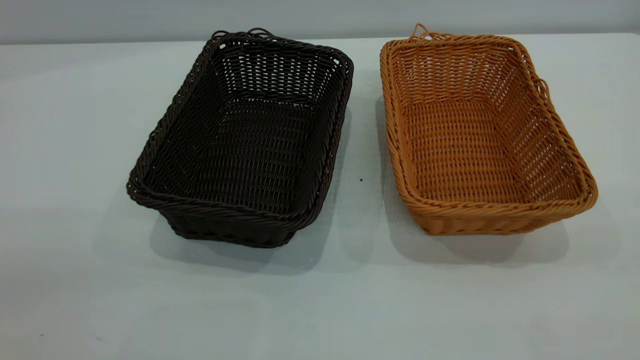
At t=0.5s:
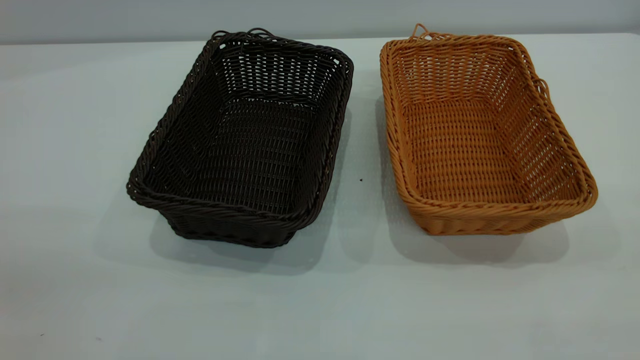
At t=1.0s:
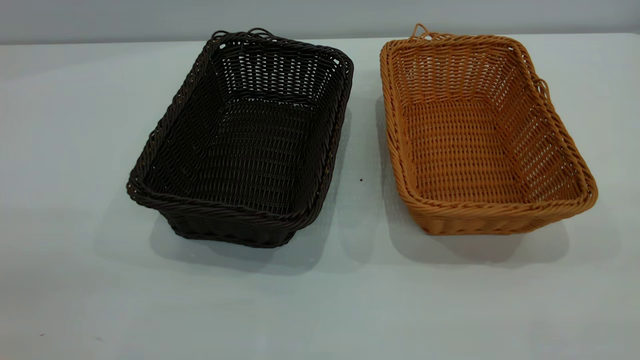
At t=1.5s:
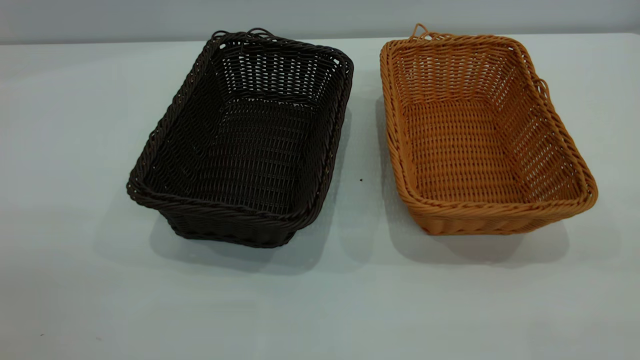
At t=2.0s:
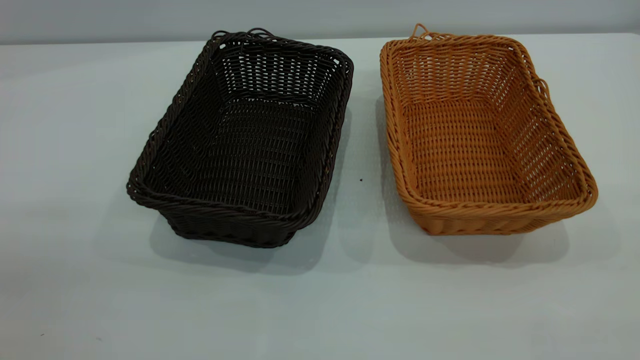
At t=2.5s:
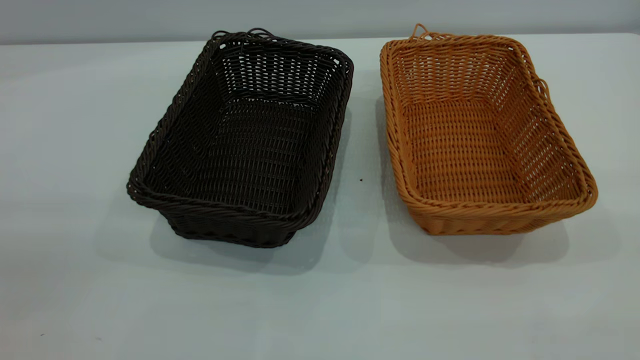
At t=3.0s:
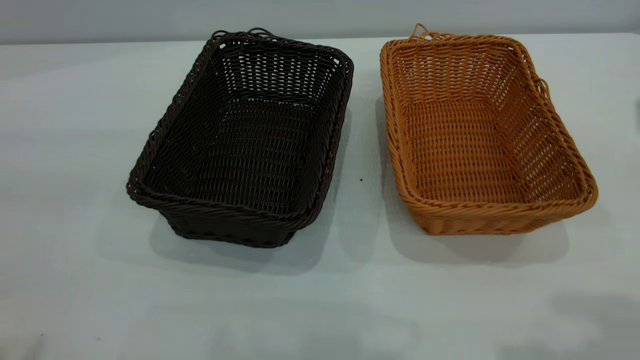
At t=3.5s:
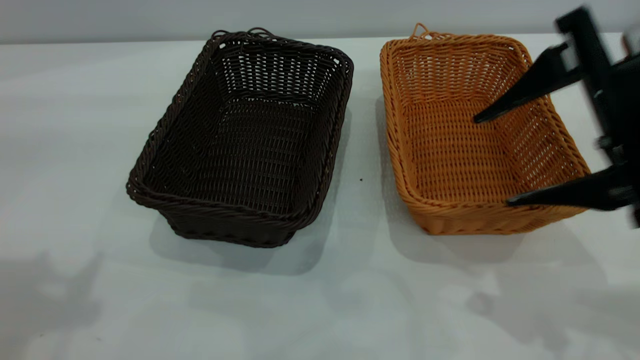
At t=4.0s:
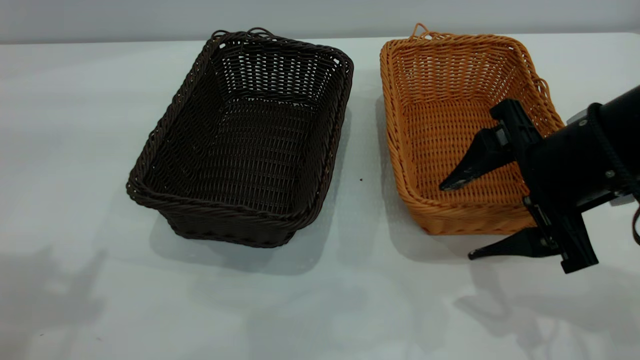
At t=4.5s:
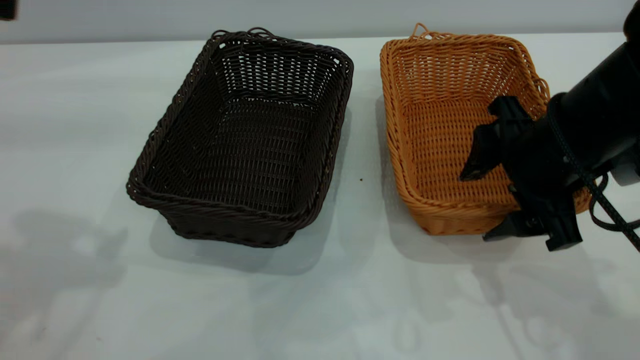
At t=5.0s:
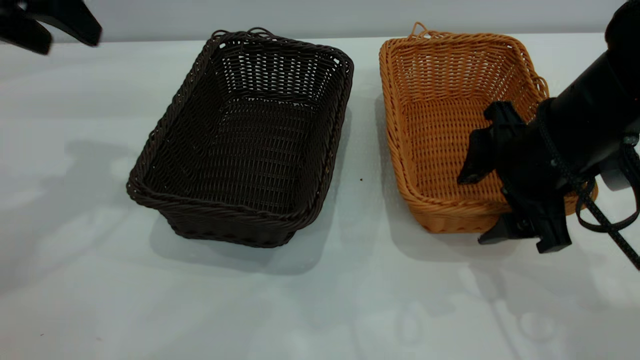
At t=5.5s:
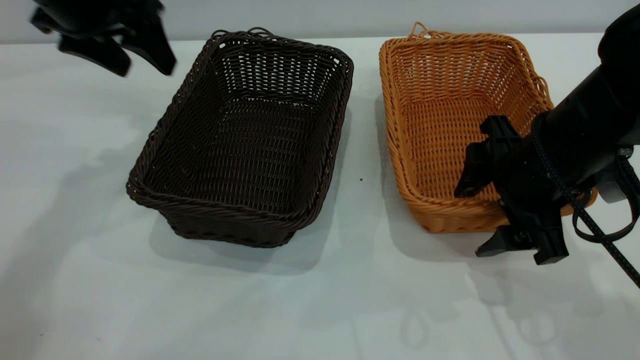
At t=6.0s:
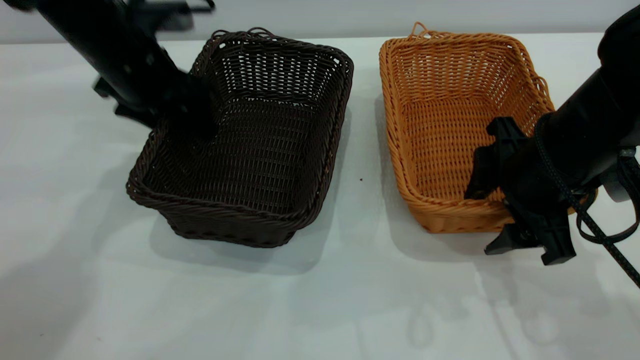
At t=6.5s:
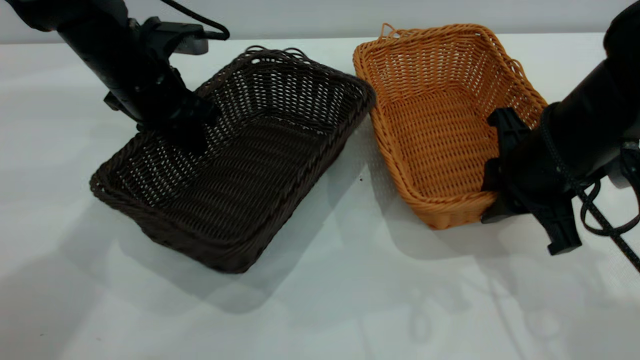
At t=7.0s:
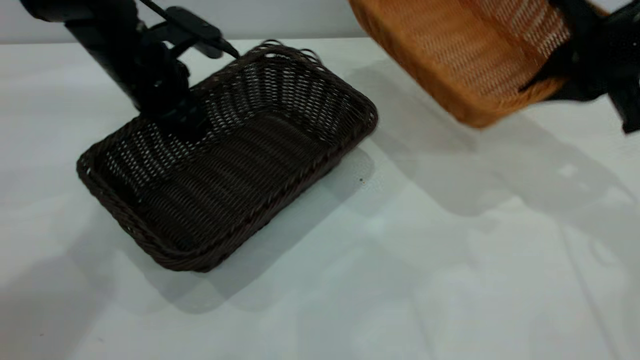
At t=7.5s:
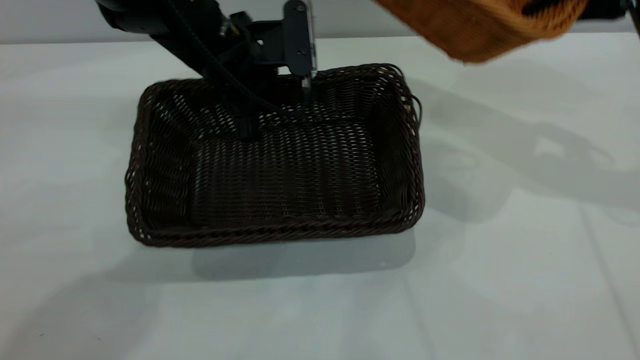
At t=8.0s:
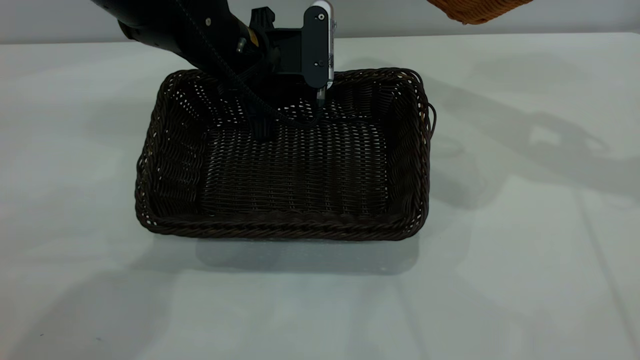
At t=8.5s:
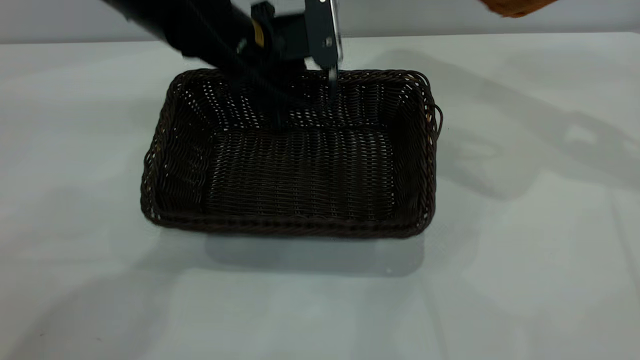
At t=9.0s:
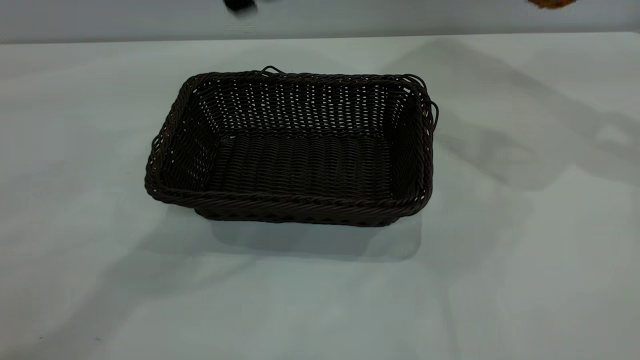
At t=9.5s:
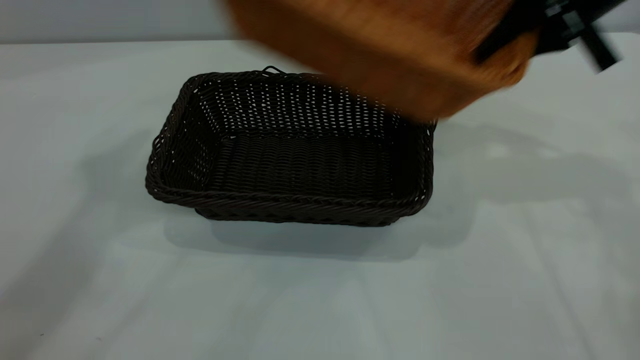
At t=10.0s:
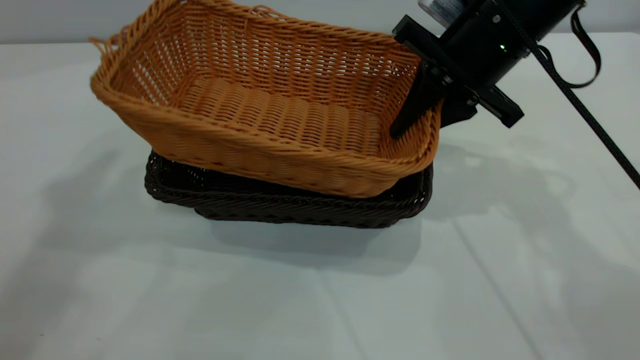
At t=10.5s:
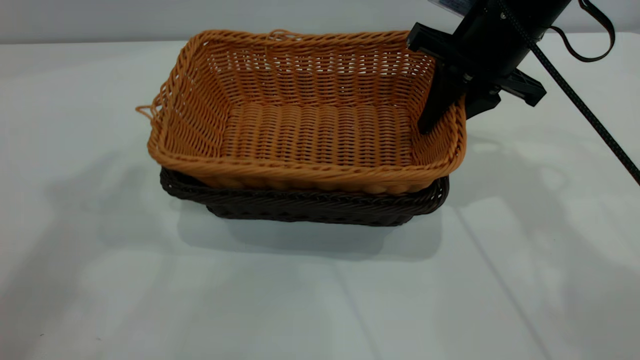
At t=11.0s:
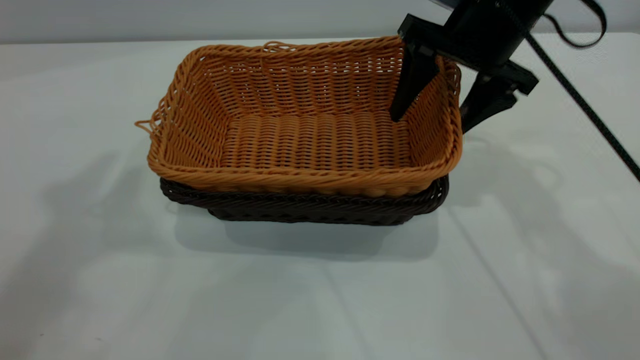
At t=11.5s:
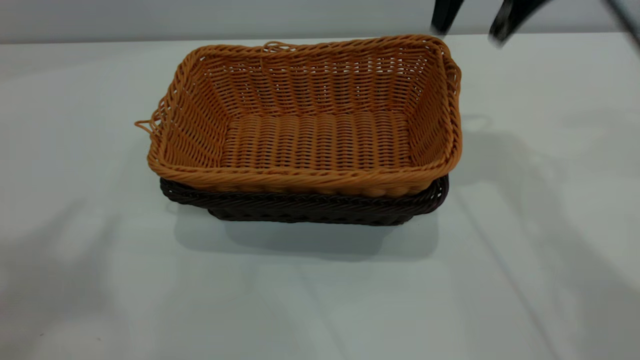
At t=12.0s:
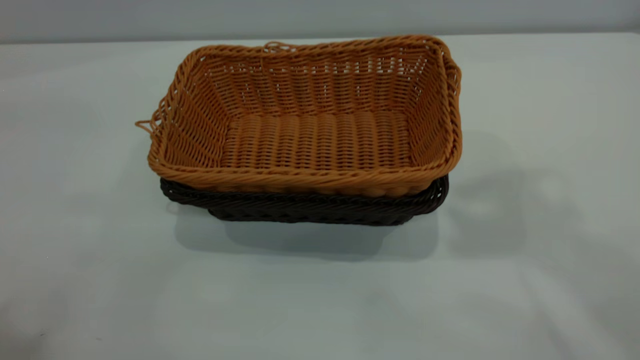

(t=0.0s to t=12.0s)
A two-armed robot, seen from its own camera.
Task of the whole recording: the left gripper grasp the black basket and place it in the center of the table, the right gripper grasp the brown basket and place it inside the black one.
Step, t=0.0s - t=6.5s: Pick up the light basket with the right gripper.
Step, t=7.0s - t=8.5s: Move the dark basket to the center of view.
Step, t=9.0s - t=11.0s: Place the light basket on the dark basket.
t=0.0s - t=2.0s: Both grippers stay about where they are.
t=2.0s - t=4.0s: The right gripper goes about 35 cm forward and downward.
t=4.0s - t=6.0s: The left gripper travels forward, downward and to the right by approximately 30 cm.
t=6.0s - t=8.0s: The left gripper travels to the right by about 10 cm, and closes its fingers. The right gripper goes about 20 cm upward, forward and to the right, and closes up.
t=8.0s - t=10.0s: The right gripper goes about 15 cm to the left and downward; the left gripper heads upward, covering some 40 cm, and opens its fingers.
t=10.0s - t=12.0s: The left gripper shifts some 15 cm backward. The right gripper shifts approximately 35 cm upward, and opens its fingers.

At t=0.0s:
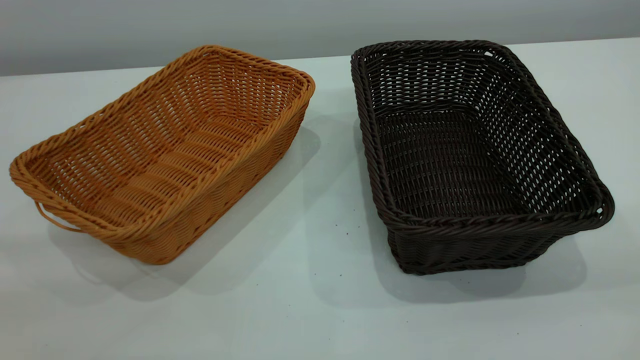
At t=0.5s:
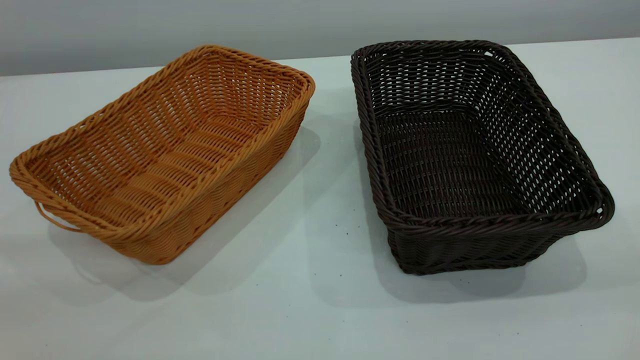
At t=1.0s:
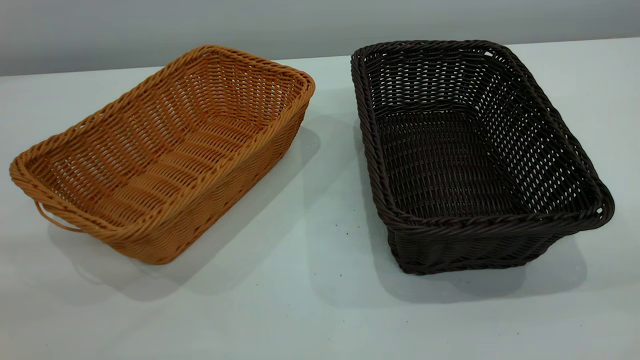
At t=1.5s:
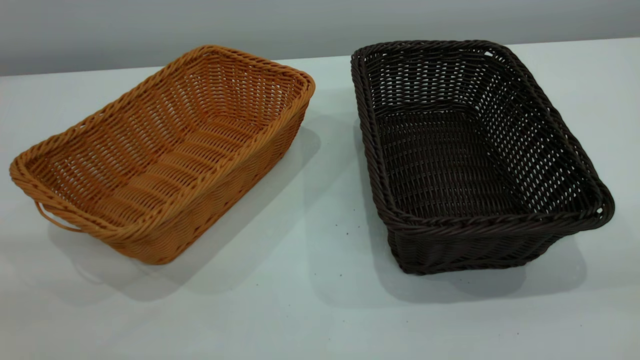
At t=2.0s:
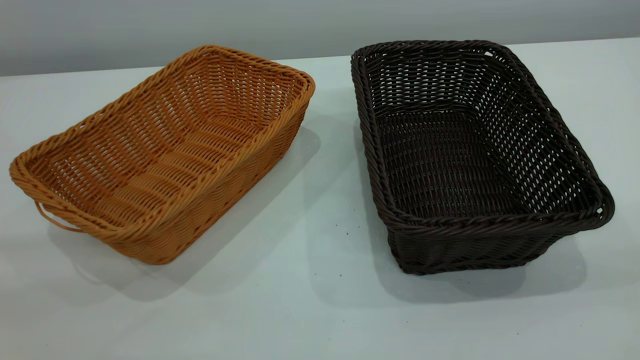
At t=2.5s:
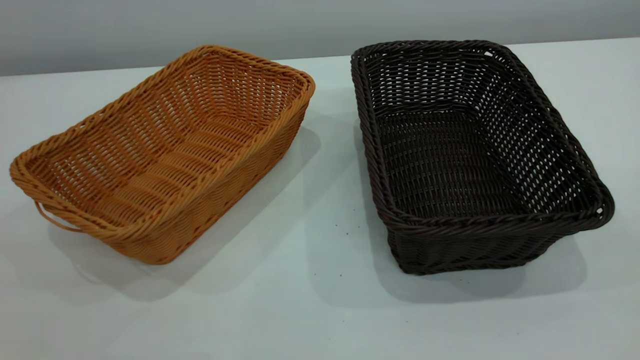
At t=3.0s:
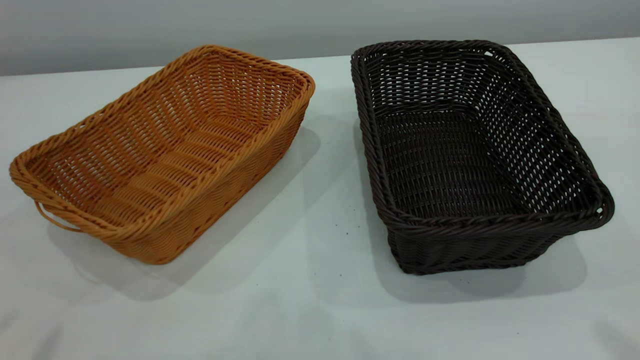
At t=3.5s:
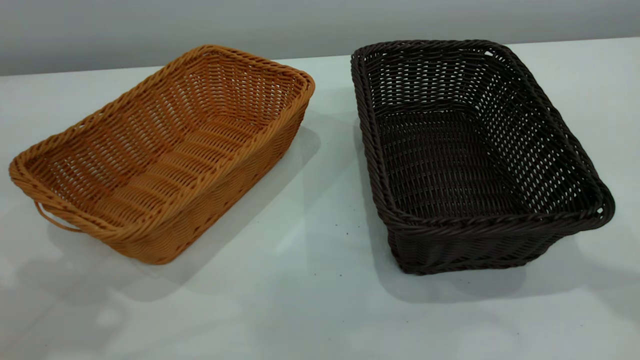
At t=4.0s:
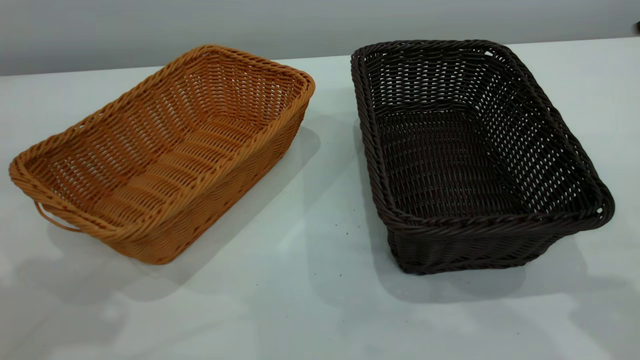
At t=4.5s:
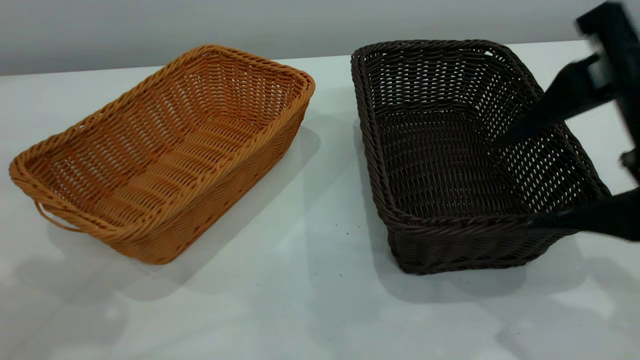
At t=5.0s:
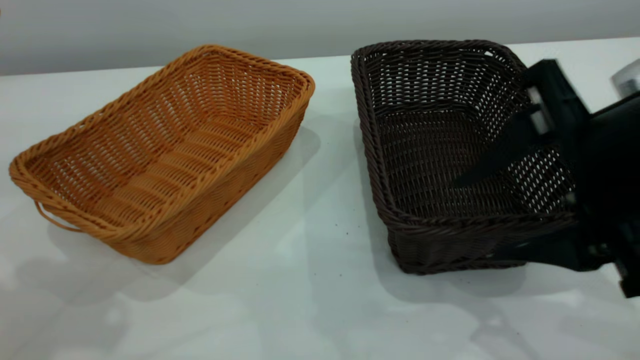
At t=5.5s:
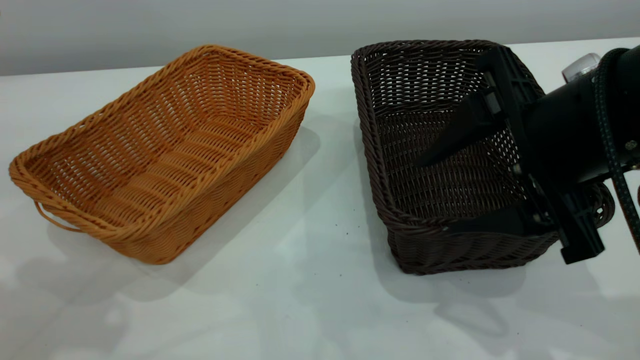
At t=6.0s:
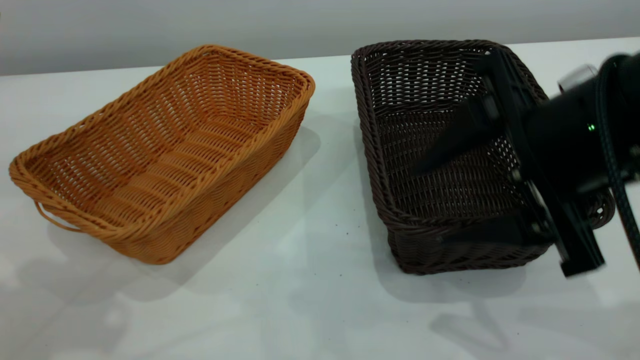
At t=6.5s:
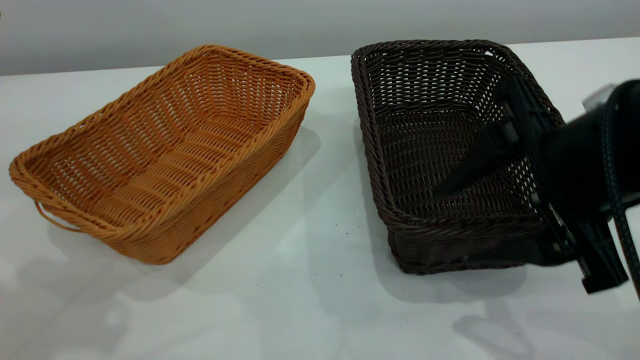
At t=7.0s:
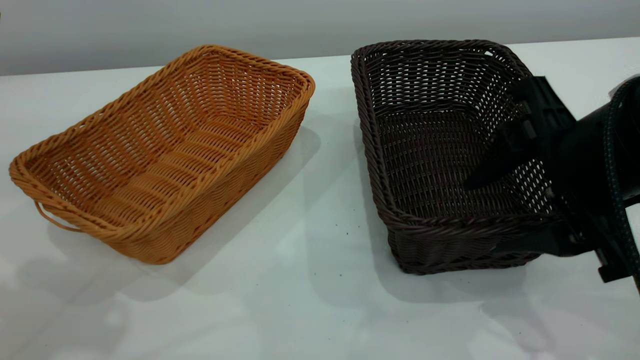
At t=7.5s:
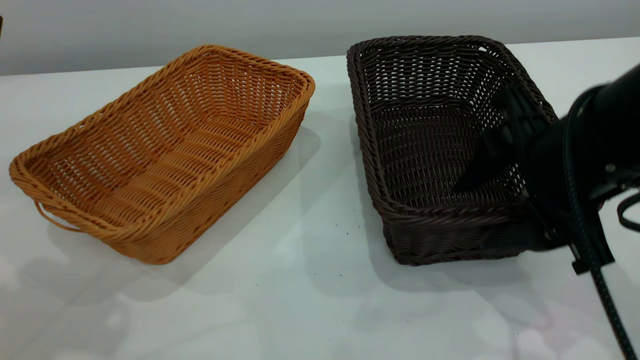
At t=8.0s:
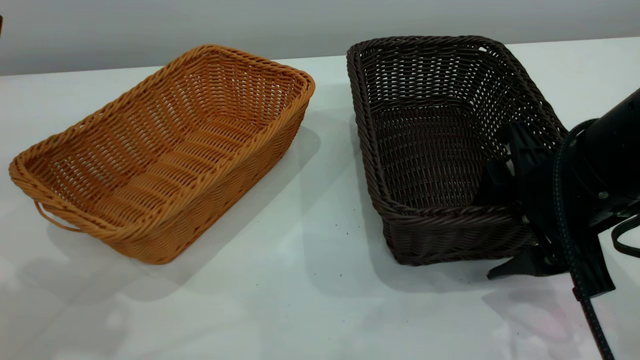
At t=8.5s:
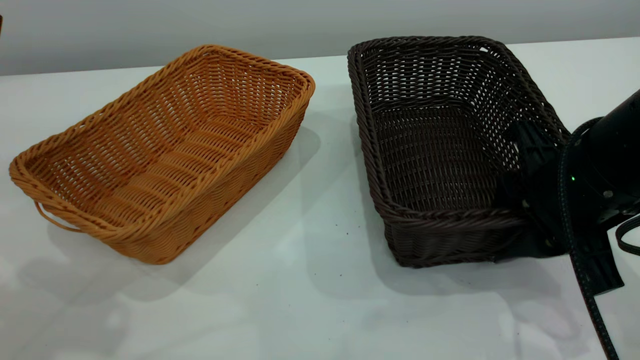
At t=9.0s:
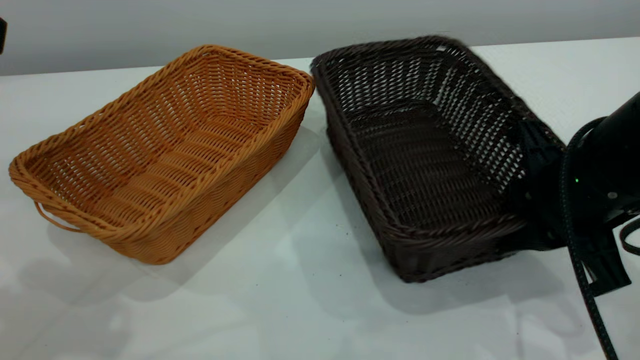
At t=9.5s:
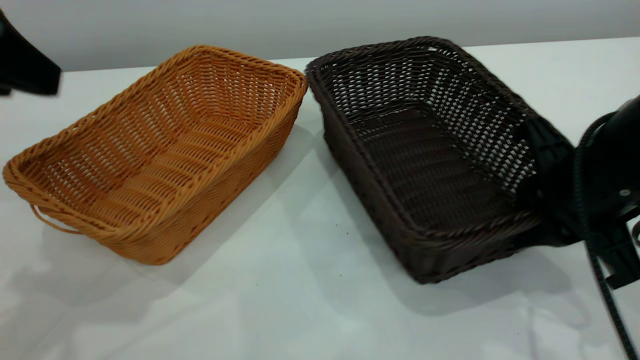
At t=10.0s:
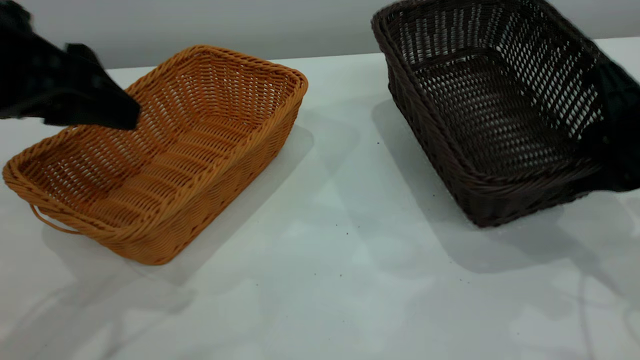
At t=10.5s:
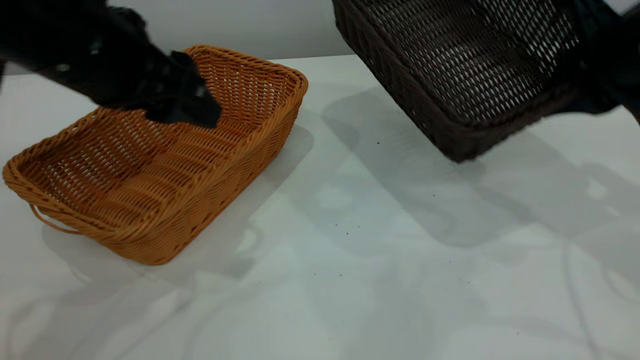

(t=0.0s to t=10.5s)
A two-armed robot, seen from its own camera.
Task of the whole recording: the left gripper grasp the brown basket and place it in the center of the table, the right gripper grasp the black basket and place it inside the brown one.
Step, t=0.0s - t=9.5s: Pick up the light basket with the right gripper.
t=4.0s - t=6.5s: The right gripper moves downward and to the left, roughly 15 cm.
t=6.5s - t=8.5s: The right gripper shifts by approximately 5 cm, and closes.
t=8.5s - t=10.5s: The left gripper goes about 15 cm downward, forward and to the right; the right gripper heads upward and forward, covering about 10 cm.
